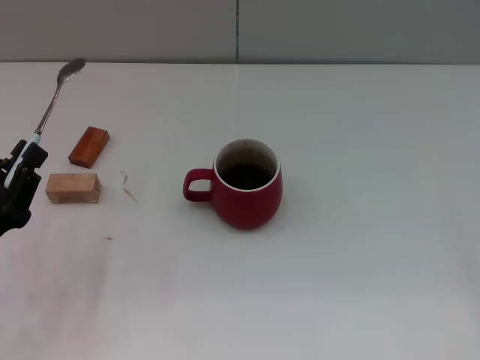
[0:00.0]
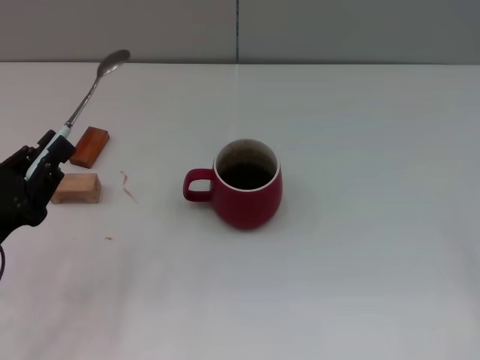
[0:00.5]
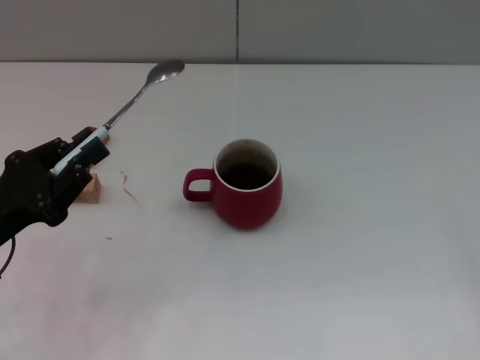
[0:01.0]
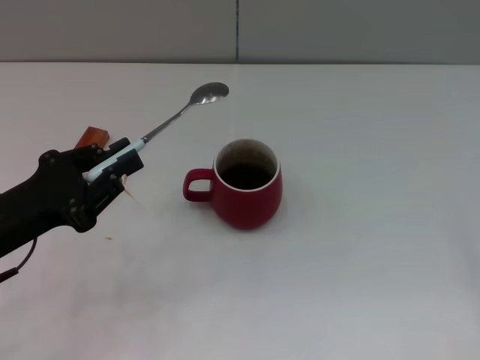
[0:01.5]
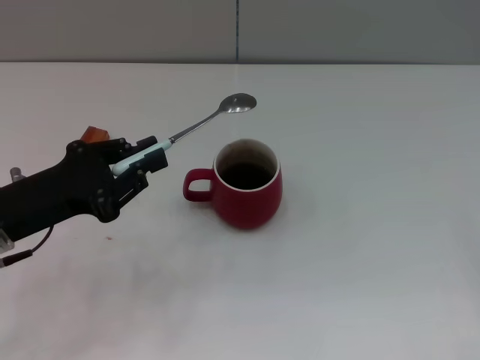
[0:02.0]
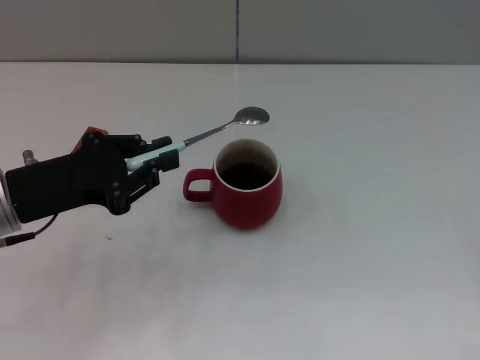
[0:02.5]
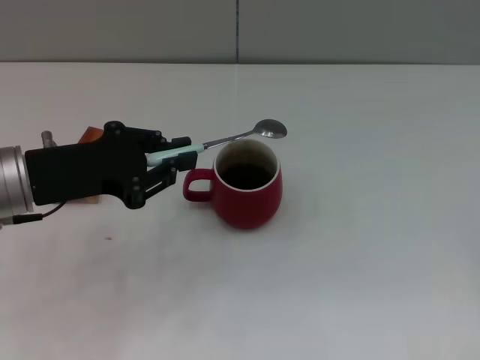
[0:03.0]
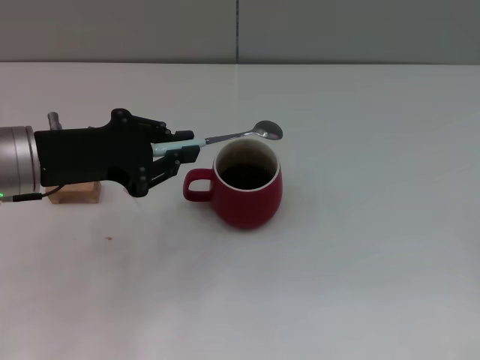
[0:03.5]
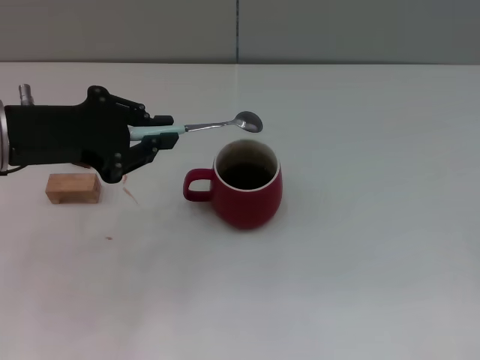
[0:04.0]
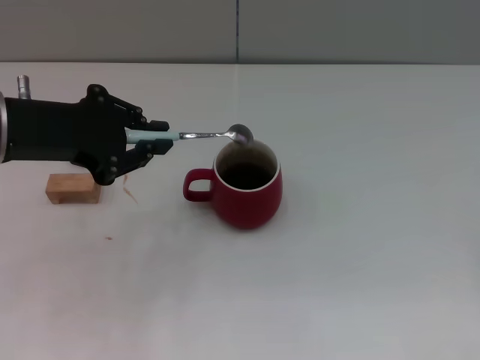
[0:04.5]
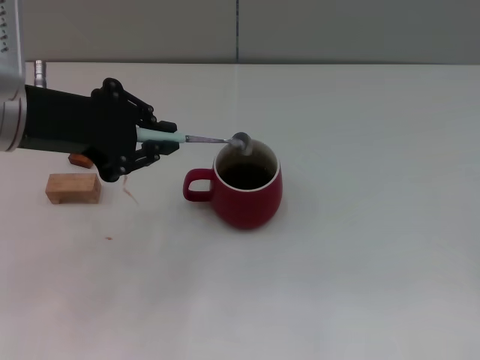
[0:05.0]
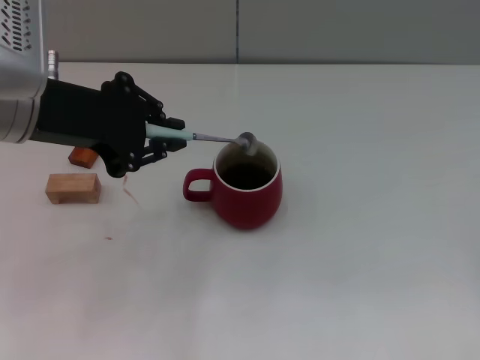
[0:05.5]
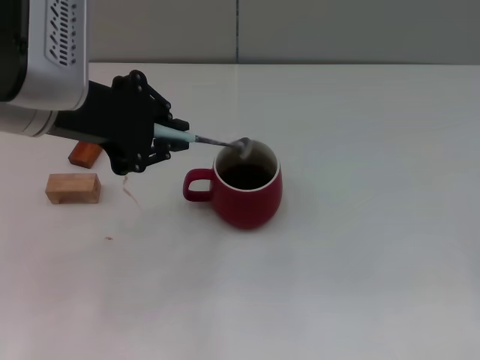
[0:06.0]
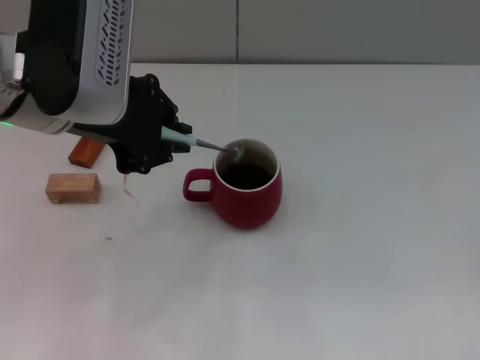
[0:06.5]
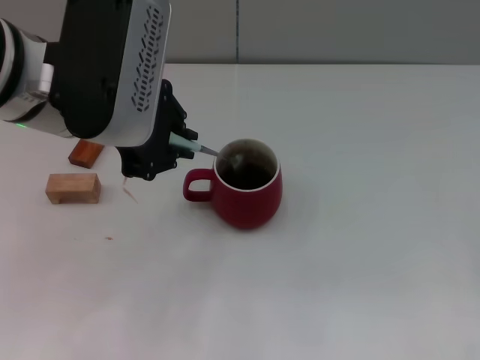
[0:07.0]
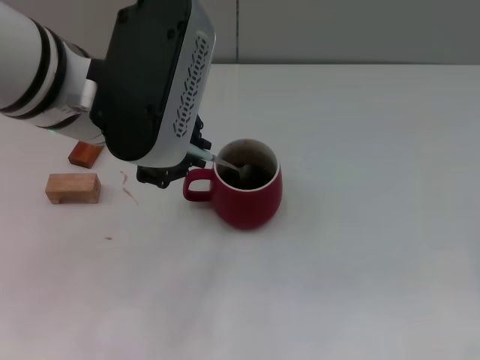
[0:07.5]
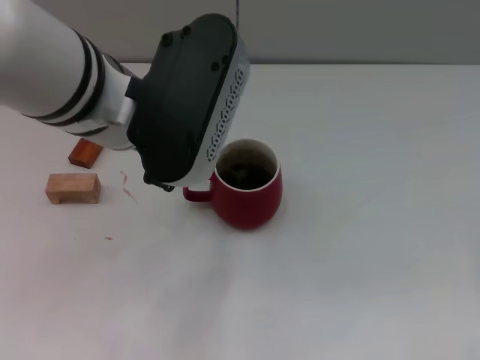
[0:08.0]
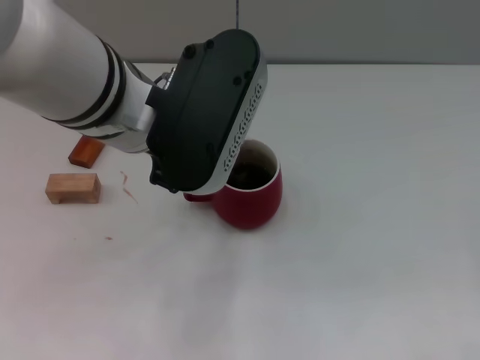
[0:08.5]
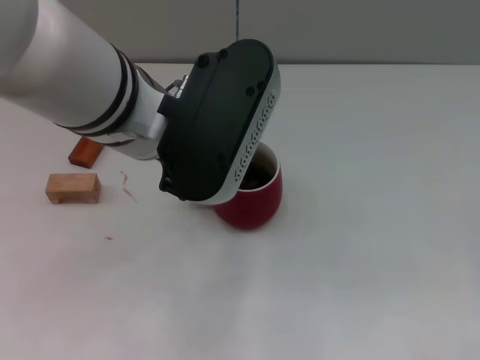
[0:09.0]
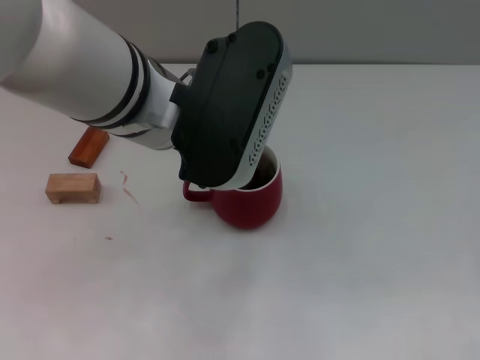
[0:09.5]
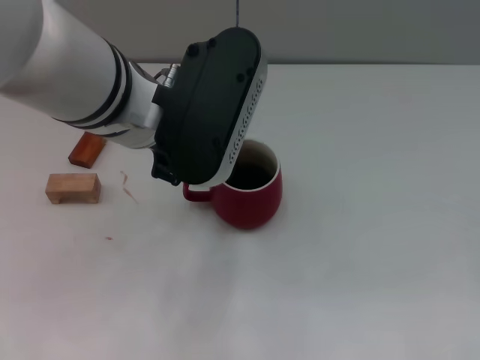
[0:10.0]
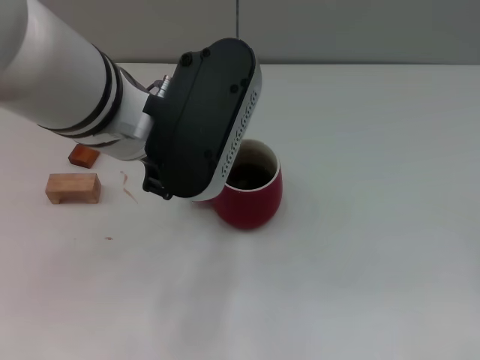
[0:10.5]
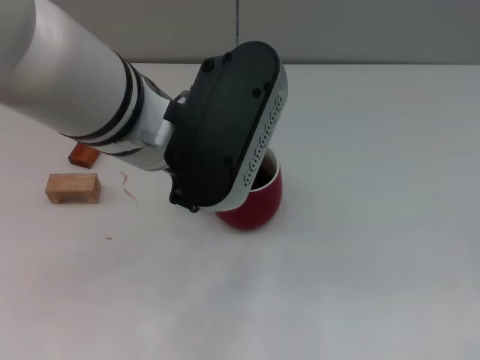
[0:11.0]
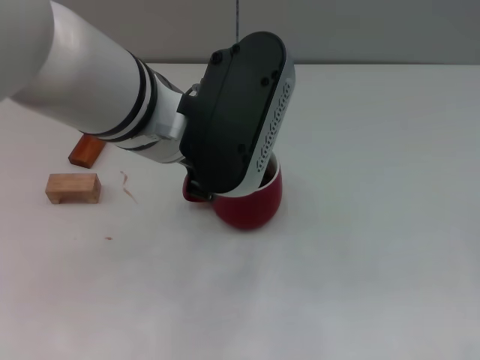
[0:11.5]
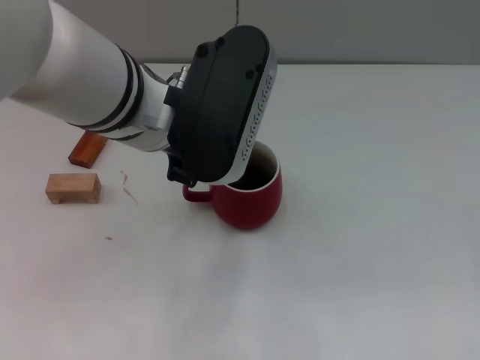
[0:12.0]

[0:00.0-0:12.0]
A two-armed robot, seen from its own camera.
Task of the whole recording: Move the red cup to the center, lift the blue spoon, stir it three times in the cup, and put the spoon into the cup.
0:00.0 to 0:02.0: The left gripper travels forward and upward by some 10 cm.
0:02.0 to 0:04.0: The left gripper heads upward and forward, covering some 10 cm.
0:04.0 to 0:06.0: The left gripper heads upward and to the right, covering roughly 10 cm.
0:06.0 to 0:08.0: The left gripper goes approximately 10 cm to the right.
0:08.0 to 0:12.0: The grippers move only a little.

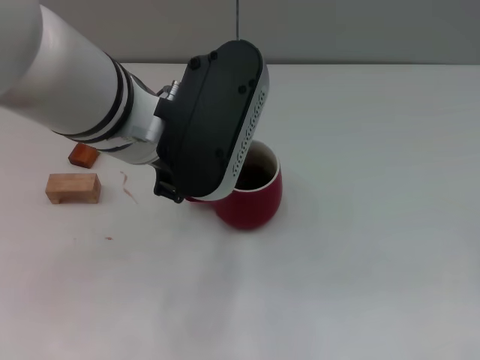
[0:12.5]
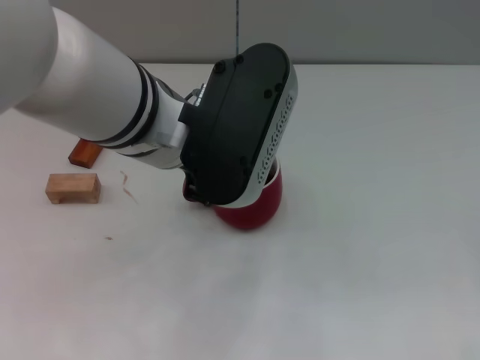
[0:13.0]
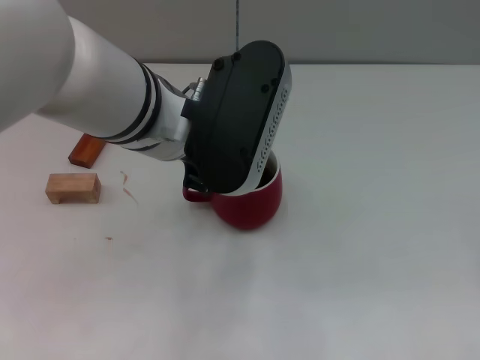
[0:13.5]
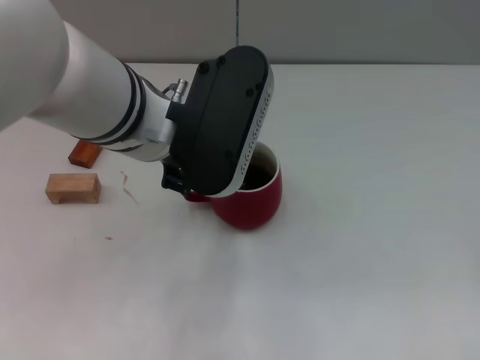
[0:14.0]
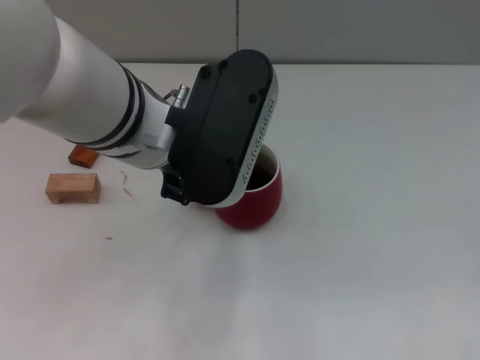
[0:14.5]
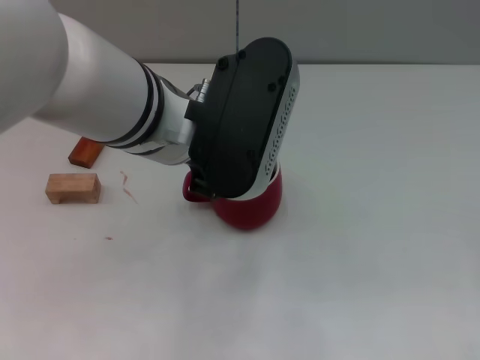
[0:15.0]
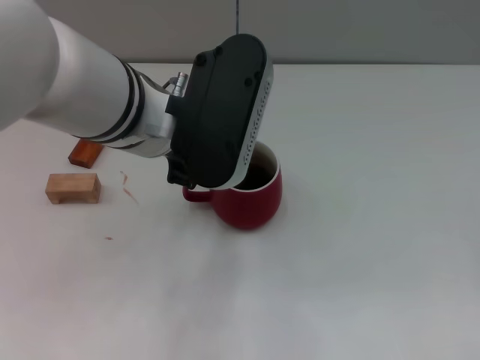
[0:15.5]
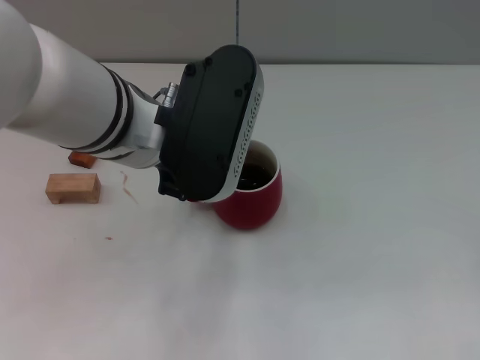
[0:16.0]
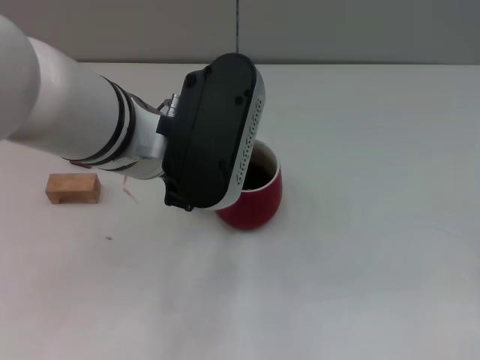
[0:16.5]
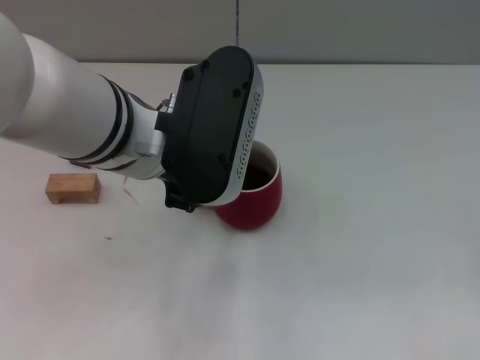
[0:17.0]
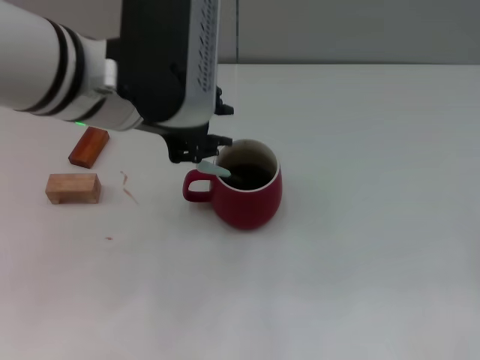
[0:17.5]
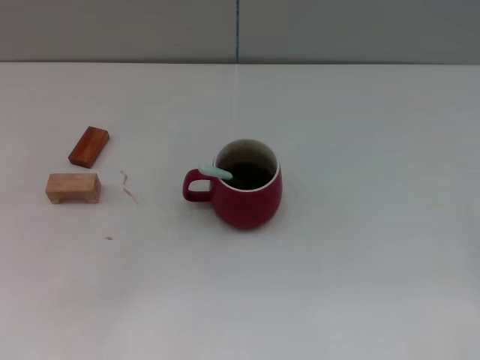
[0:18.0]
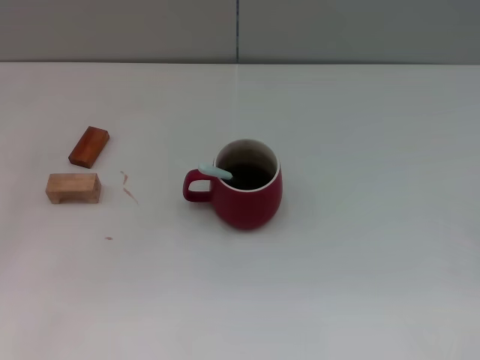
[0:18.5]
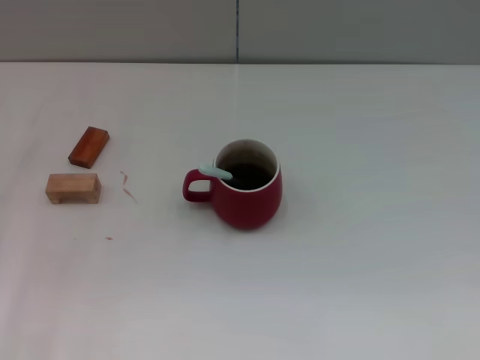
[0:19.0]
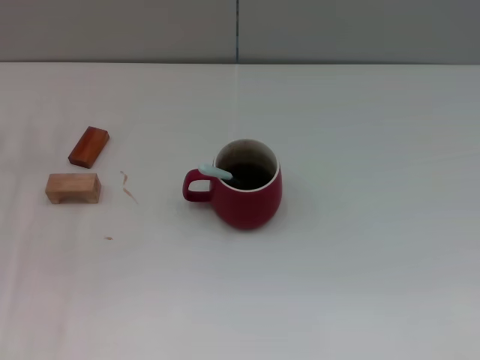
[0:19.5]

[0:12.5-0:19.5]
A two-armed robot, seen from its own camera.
Task of the whole recording: Move the red cup to the center, lift the blue spoon, stir it three times in the cup, and put the spoon into the cup.
Step, 0:12.5 to 0:17.5: Stir the coffee in the cup with the left gripper.
0:12.5 to 0:16.0: The grippers move only a little.
0:16.0 to 0:17.5: The grippers stay close to where they were, moving slightly.
0:17.5 to 0:19.5: The left gripper goes approximately 25 cm to the left and downward.
